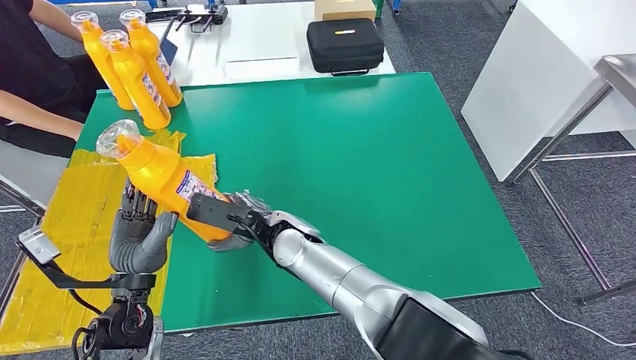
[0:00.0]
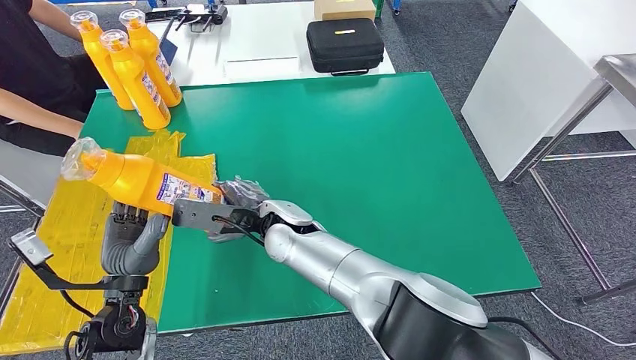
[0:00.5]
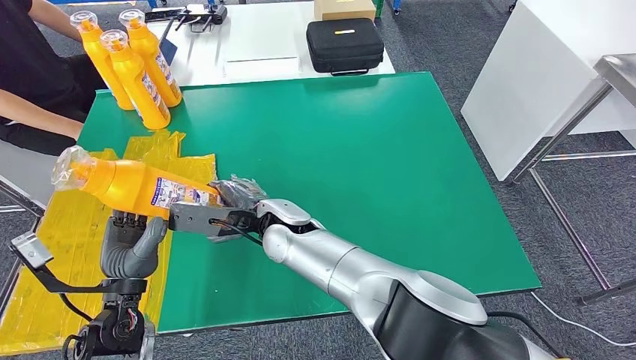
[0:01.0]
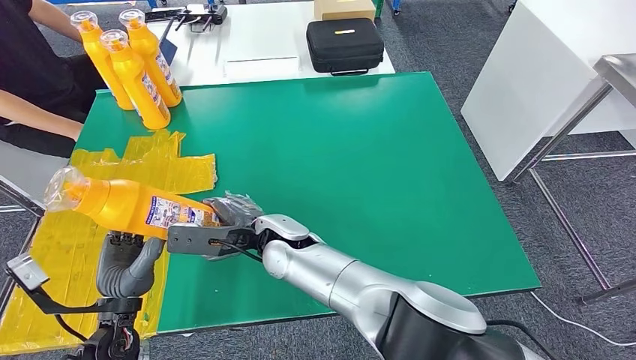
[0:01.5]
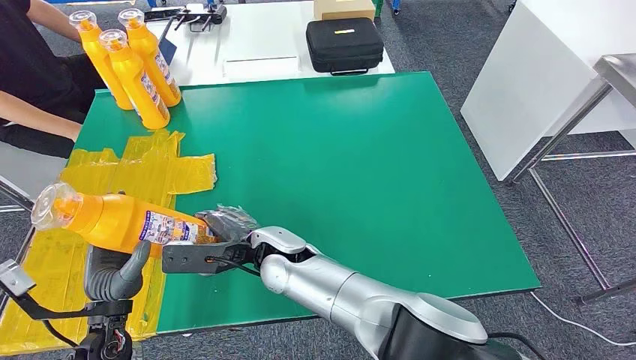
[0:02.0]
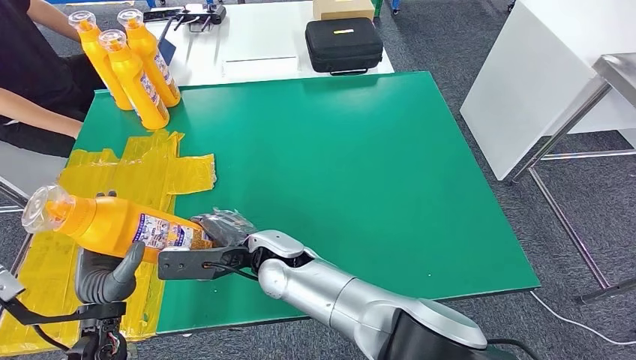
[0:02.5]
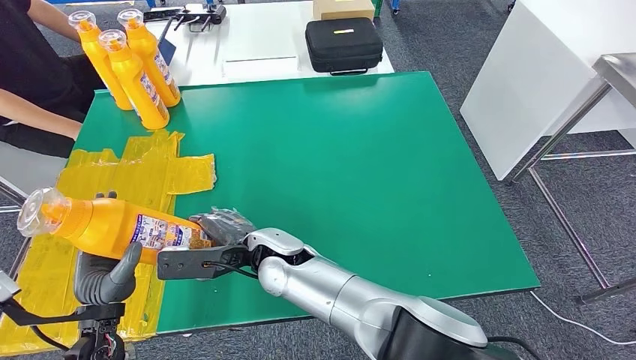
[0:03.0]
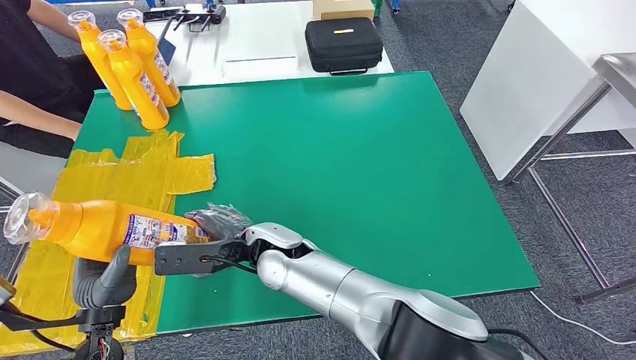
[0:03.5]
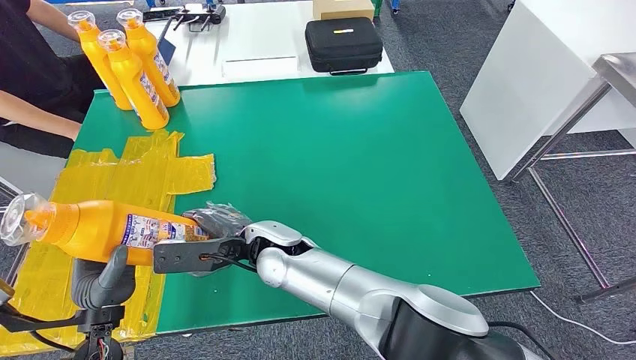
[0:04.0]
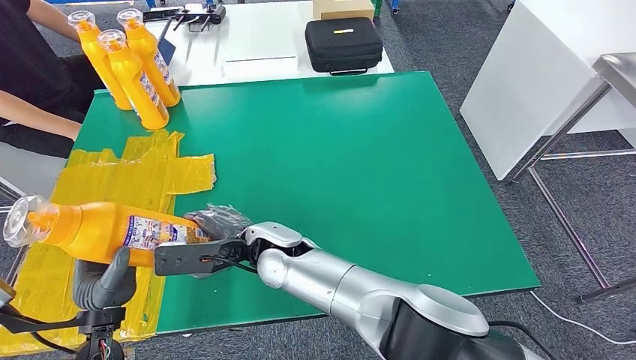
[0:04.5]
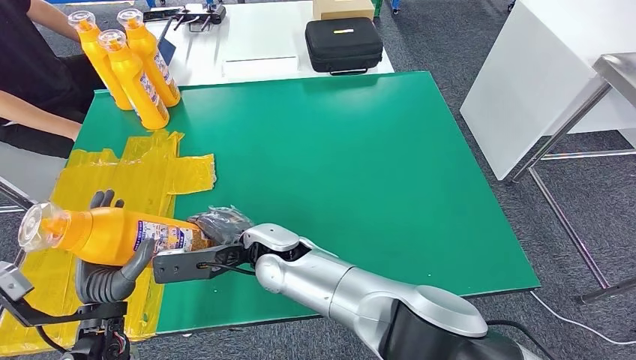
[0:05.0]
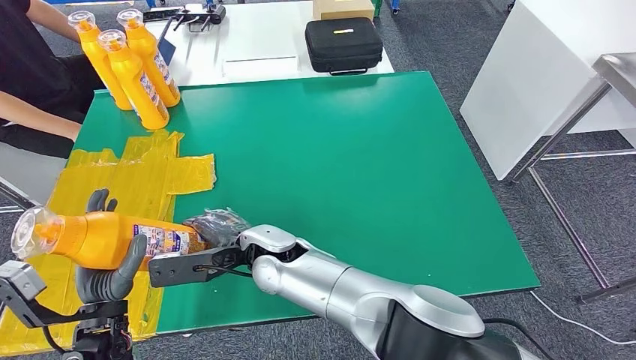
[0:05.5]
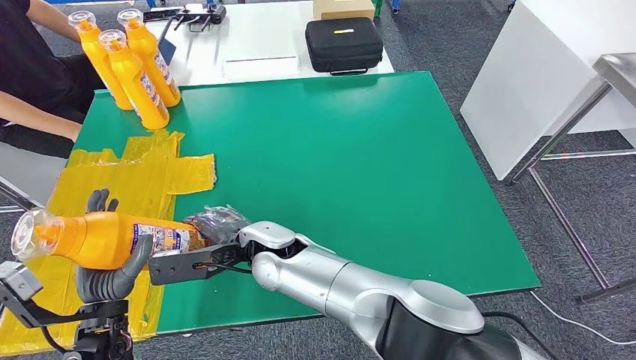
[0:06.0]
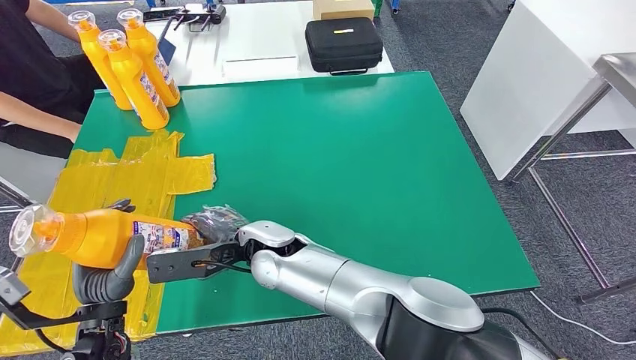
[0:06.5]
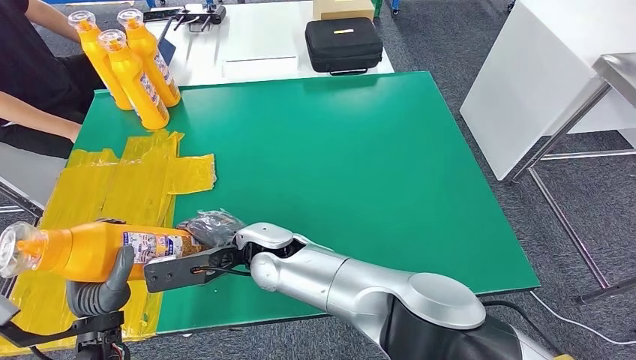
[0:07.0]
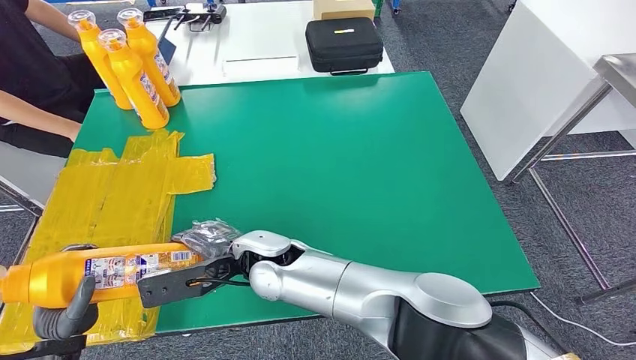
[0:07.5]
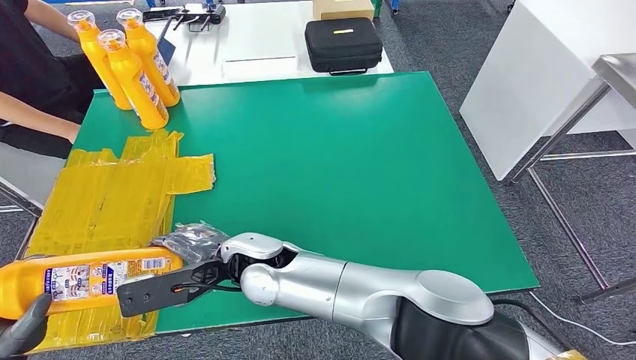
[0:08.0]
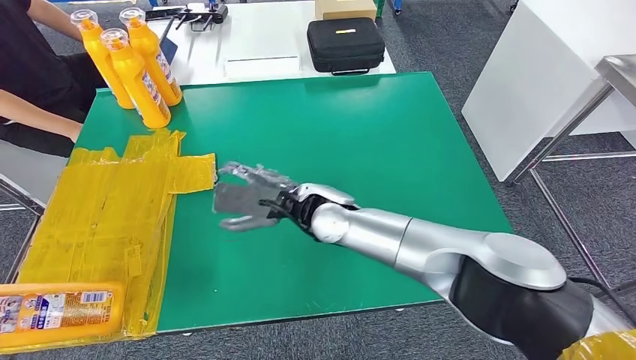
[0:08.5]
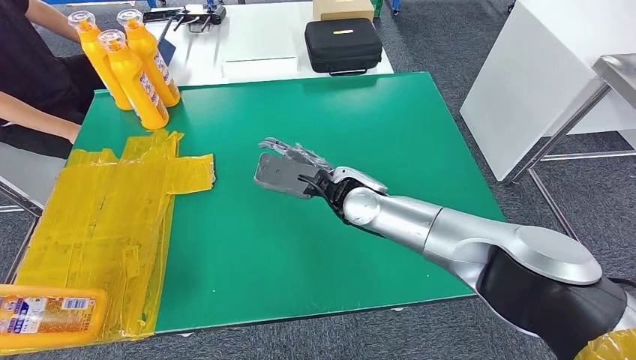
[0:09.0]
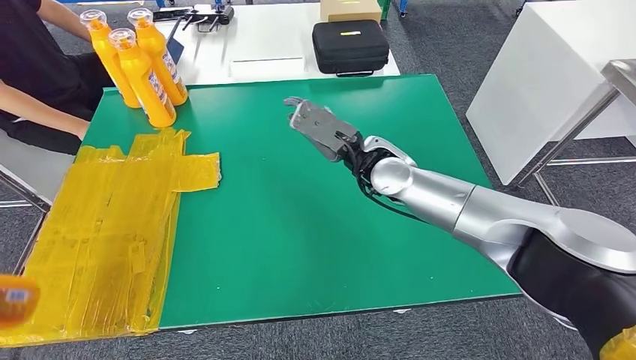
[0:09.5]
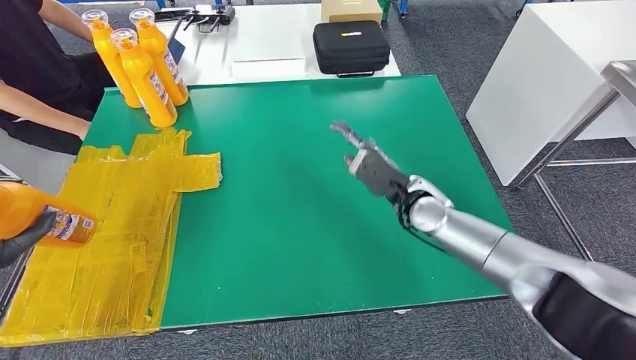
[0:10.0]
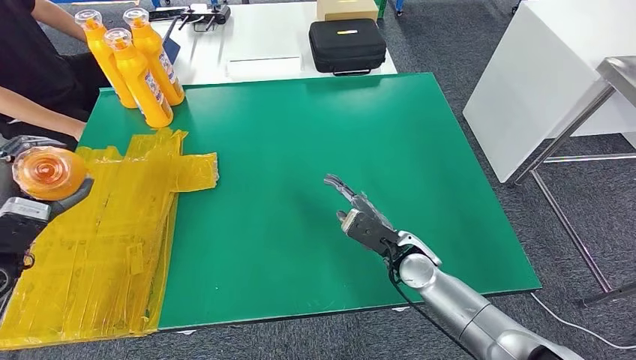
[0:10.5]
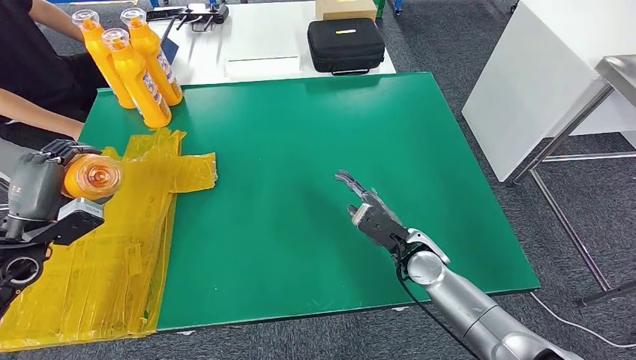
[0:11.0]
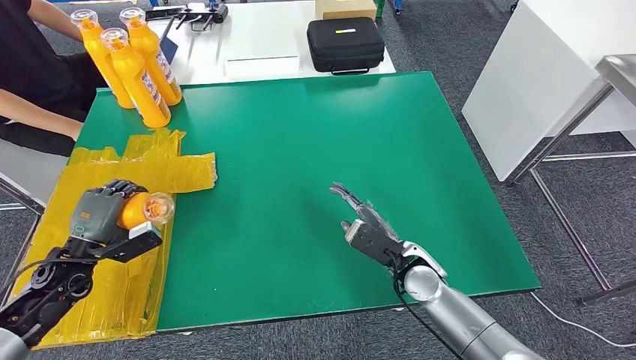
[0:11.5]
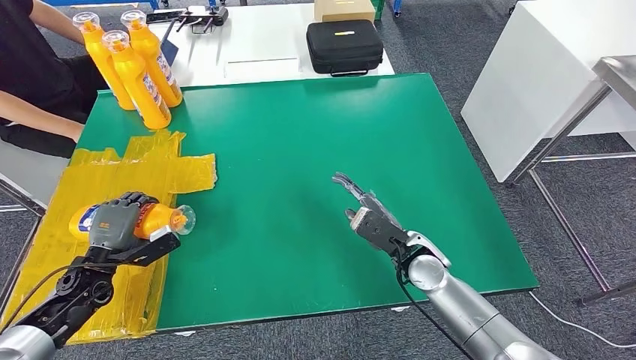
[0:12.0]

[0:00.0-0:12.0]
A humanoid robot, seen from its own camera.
0:00.0 to 0:02.0: The left hand changes place by some 5 cm.
0:02.0 to 0:04.0: The hands make only small movements.
0:06.0 to 0:08.0: The left hand is displaced to the left by about 15 cm.

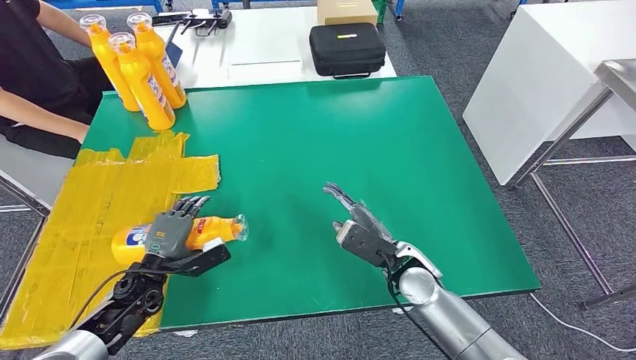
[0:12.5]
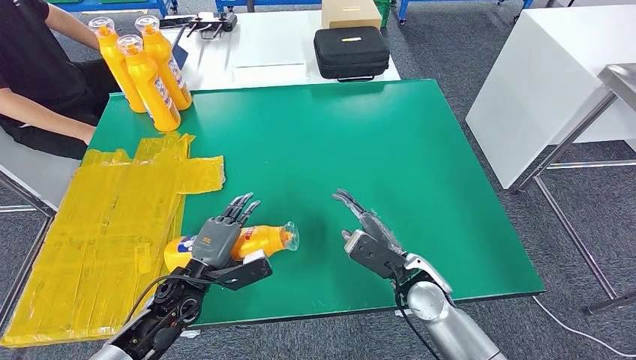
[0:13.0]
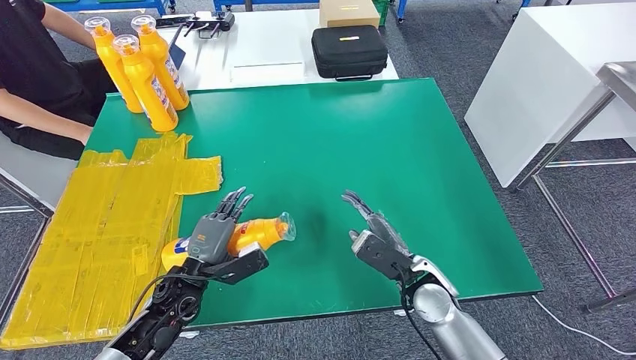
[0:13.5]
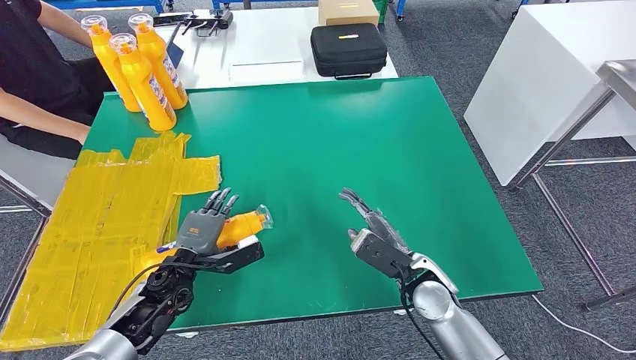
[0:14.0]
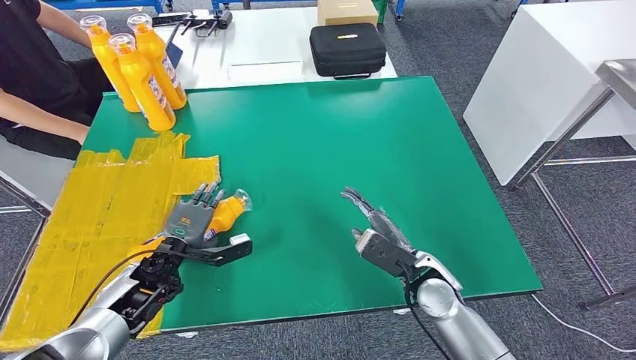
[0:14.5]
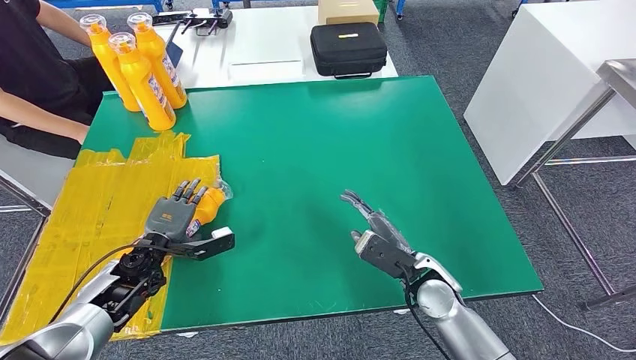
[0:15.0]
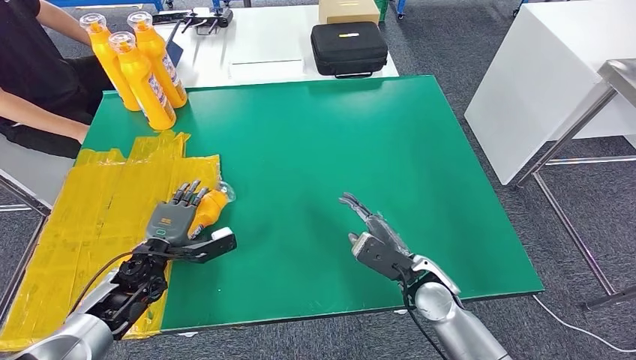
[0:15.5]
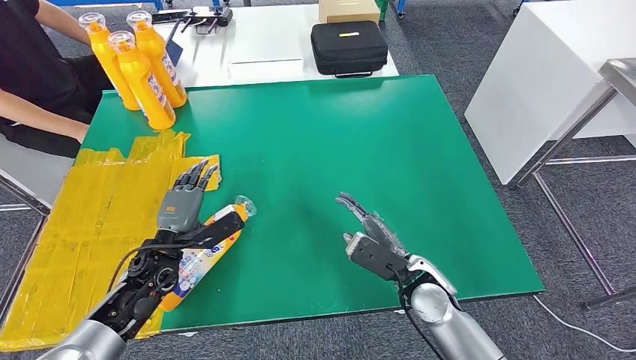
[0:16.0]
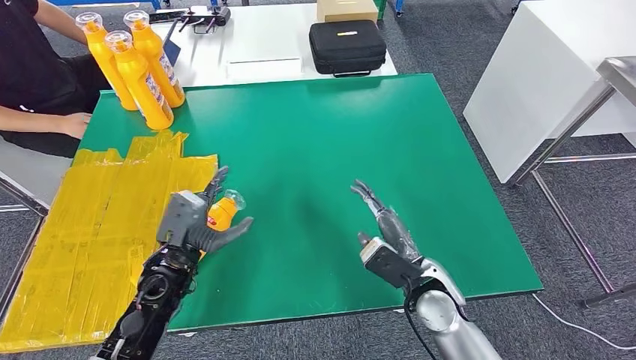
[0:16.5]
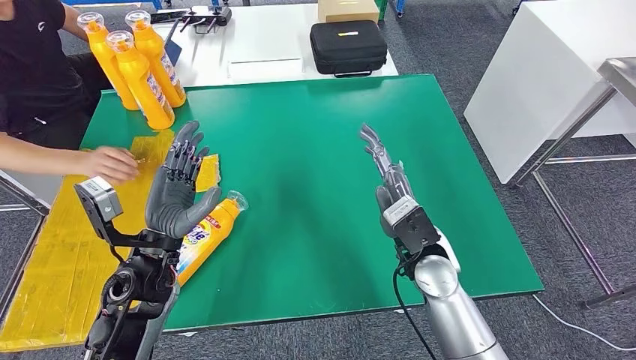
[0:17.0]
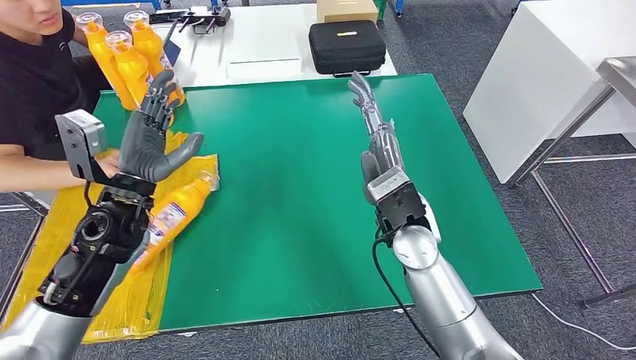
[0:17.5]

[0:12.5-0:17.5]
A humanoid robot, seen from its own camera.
Step, 0:12.5 to 0:17.5: Flip the fast-moving consumer goods bottle to the front side.
0:12.5 to 0:15.0: The left hand reaches some 10 cm to the right, then returns.
